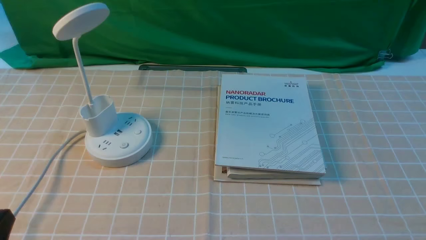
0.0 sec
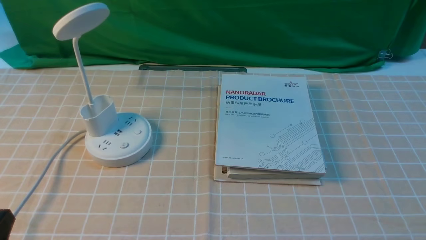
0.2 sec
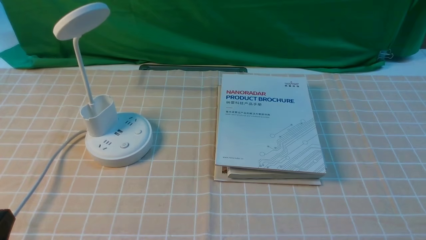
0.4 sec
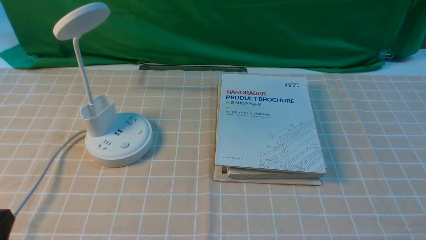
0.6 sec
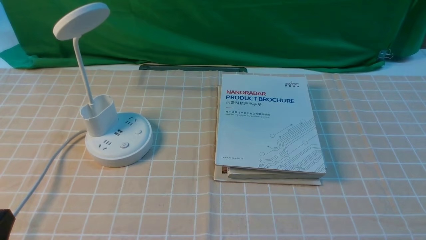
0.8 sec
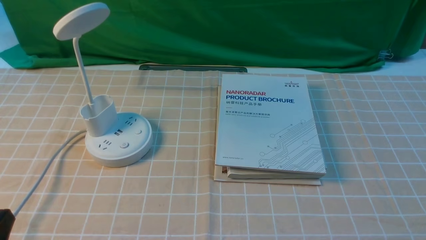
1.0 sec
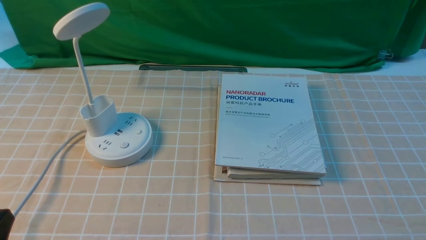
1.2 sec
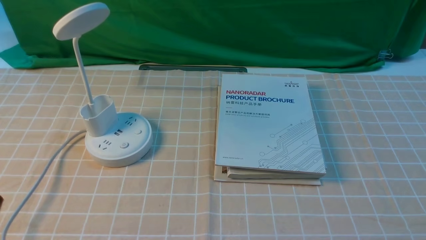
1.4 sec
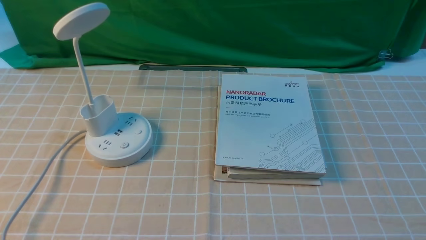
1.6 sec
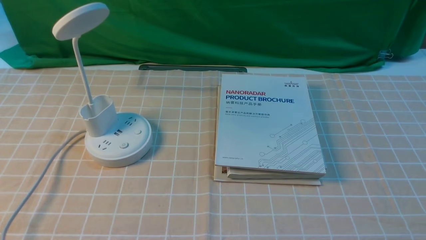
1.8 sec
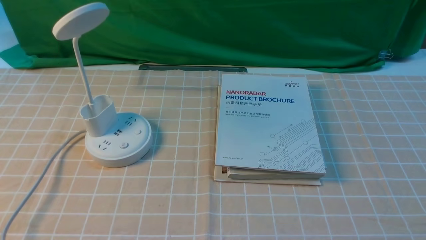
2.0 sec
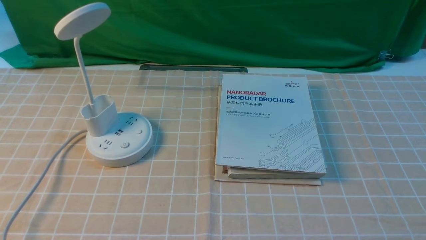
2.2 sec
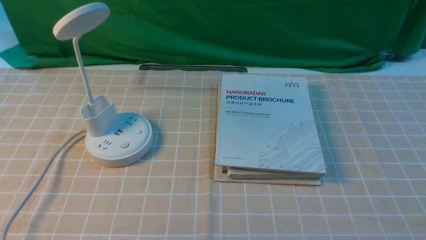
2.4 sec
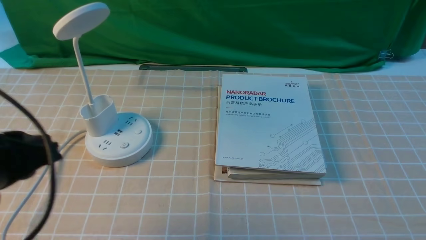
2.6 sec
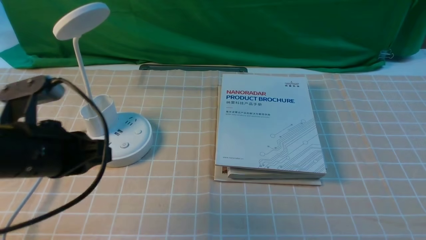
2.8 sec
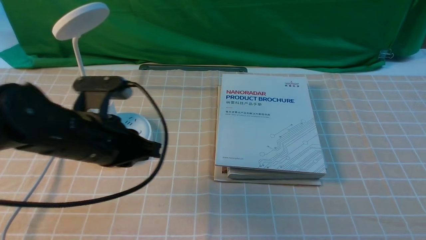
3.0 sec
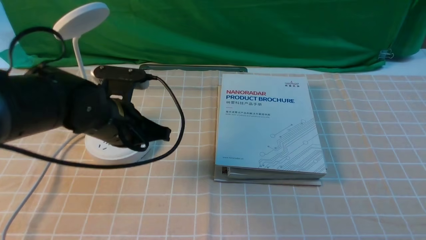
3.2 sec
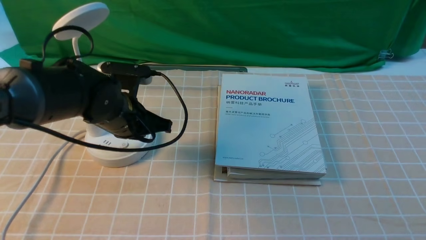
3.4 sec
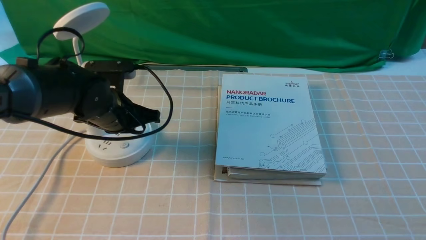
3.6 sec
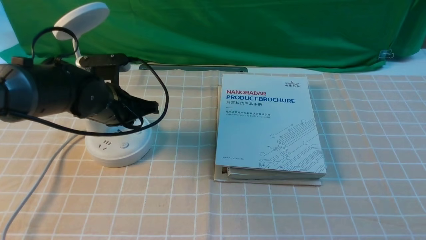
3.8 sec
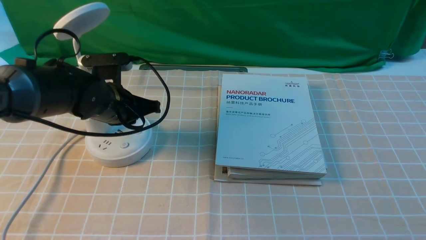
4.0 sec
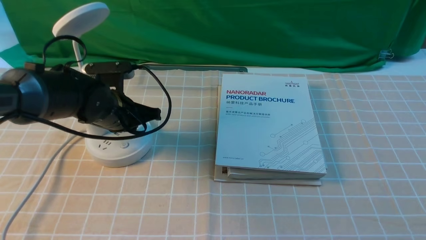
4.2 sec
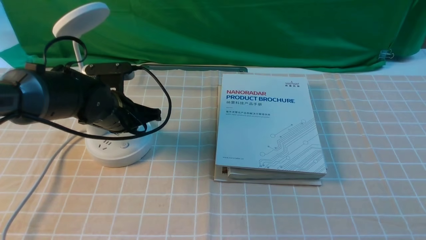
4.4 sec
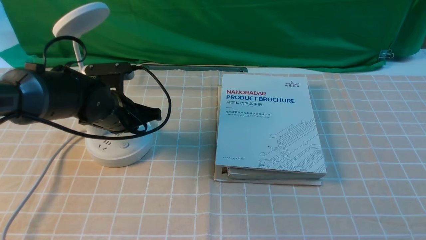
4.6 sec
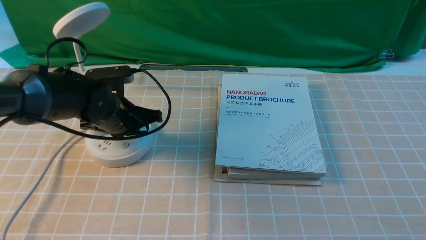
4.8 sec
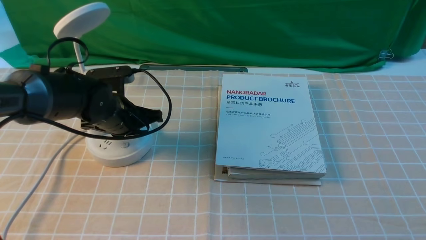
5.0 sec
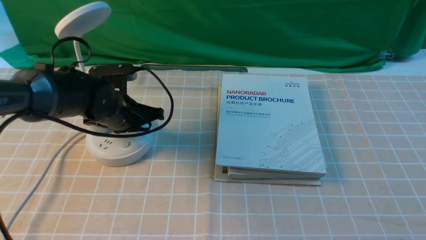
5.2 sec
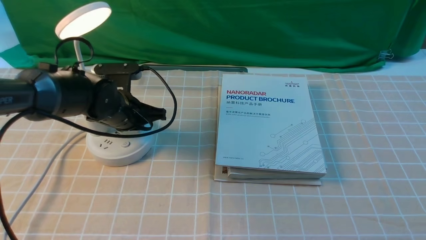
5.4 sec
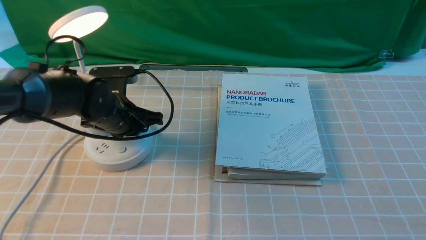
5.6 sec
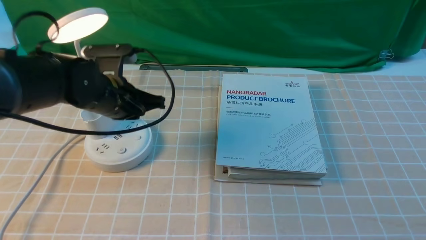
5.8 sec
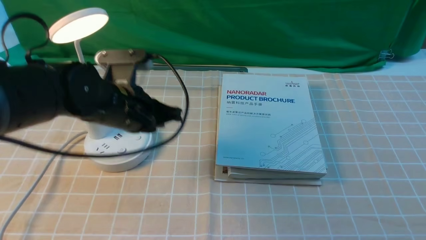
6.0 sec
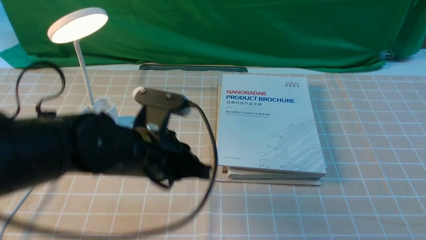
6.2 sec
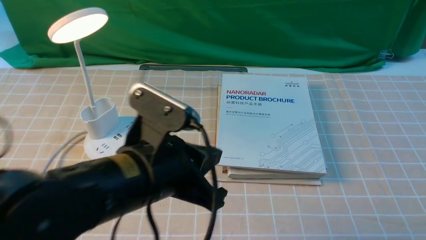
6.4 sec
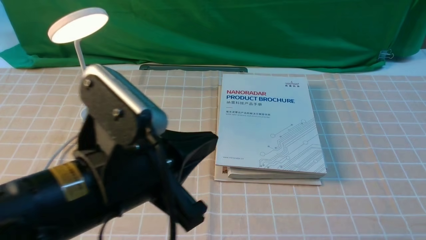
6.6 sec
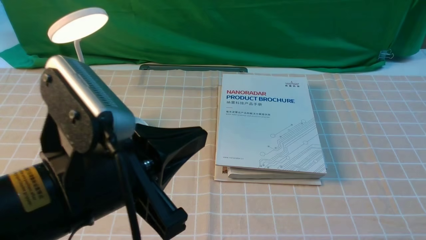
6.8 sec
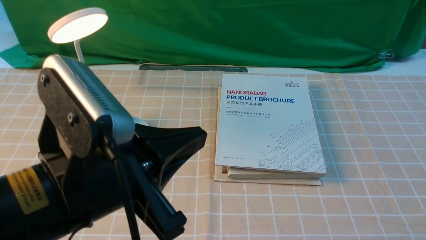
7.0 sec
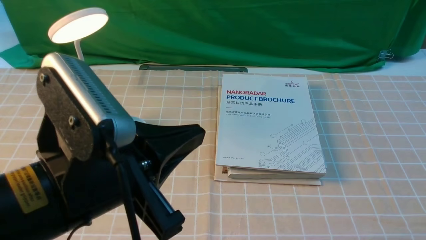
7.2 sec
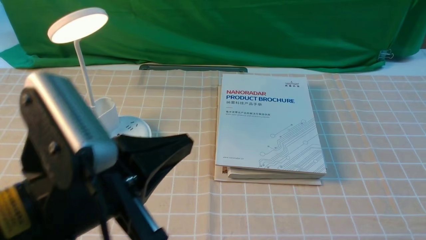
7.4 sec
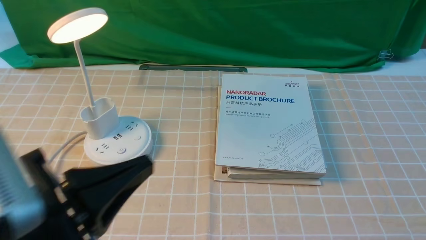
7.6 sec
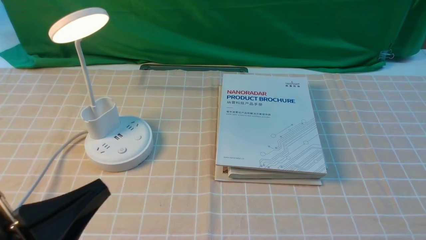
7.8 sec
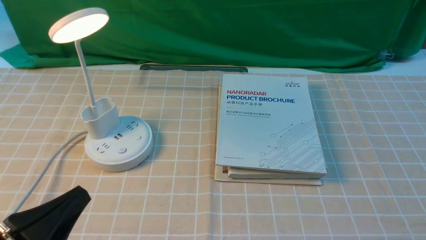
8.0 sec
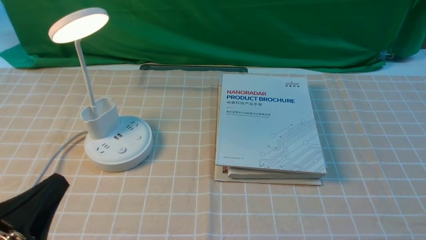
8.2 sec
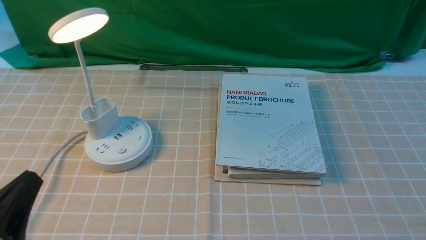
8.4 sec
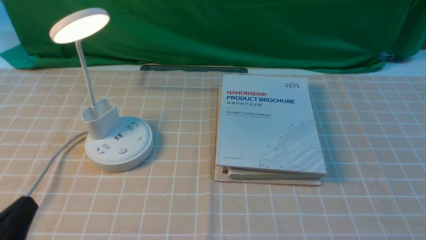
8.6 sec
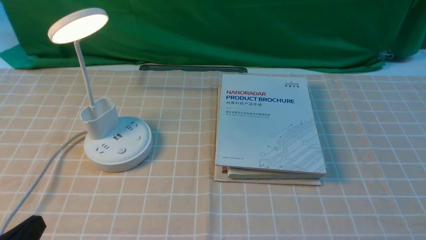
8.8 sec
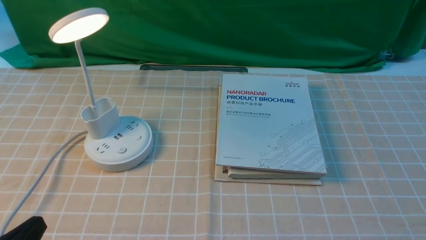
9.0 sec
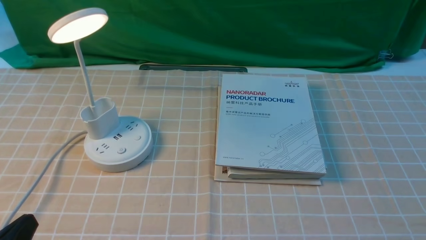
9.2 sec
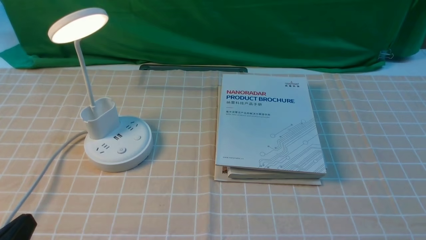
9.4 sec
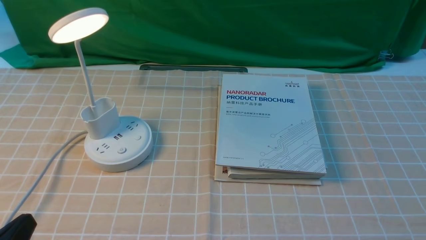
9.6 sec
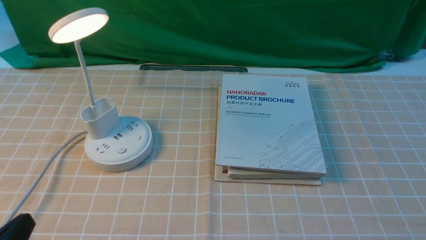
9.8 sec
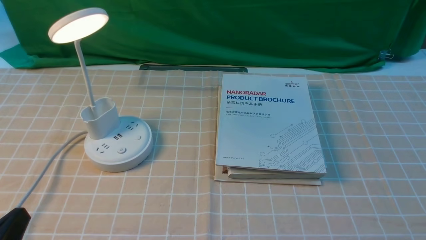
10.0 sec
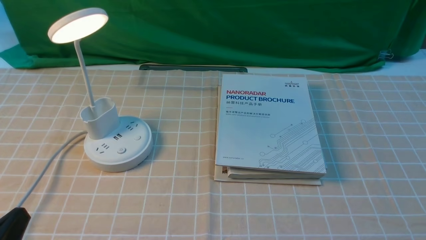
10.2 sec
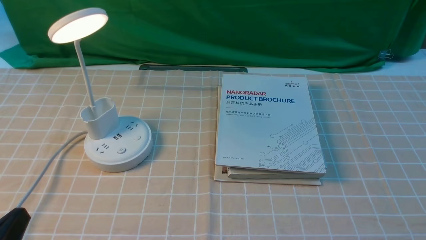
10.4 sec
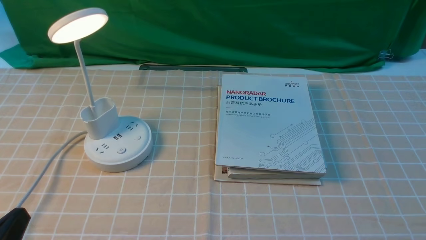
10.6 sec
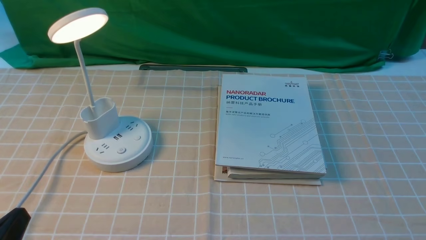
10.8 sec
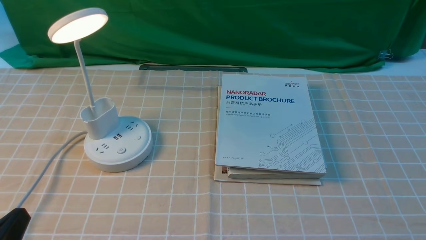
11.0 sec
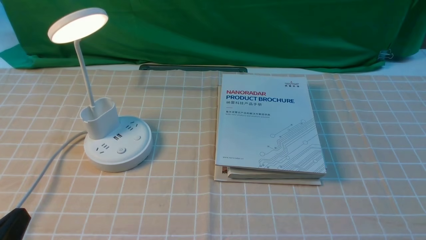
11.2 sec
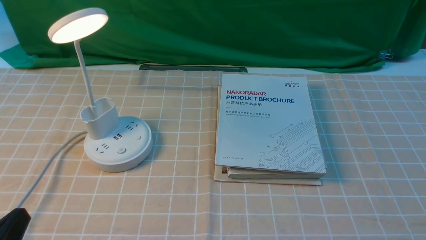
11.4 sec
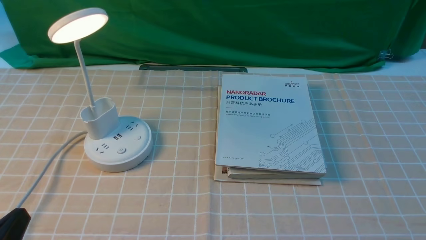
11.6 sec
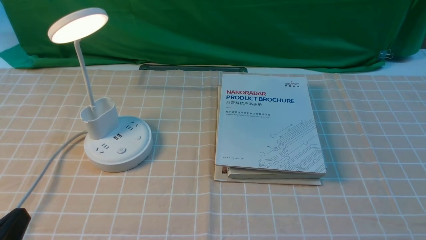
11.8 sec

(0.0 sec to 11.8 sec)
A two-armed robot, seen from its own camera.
Step, 0.0 sec - 5.8 sec: use the left arm to press the button switch on the lamp holder.
1.4 sec - 3.0 sec: The left gripper is displaced forward and to the right by roughly 25 cm, and closes.
3.0 sec - 4.4 sec: The left gripper shifts approximately 10 cm forward and downward, and opens.
4.4 sec - 6.0 sec: The left gripper goes about 10 cm backward and upward.
6.0 sec - 7.4 sec: The left gripper is displaced backward by approximately 20 cm.
7.4 sec - 8.8 sec: The left gripper travels downward, to the left and backward by about 15 cm.
8.8 sec - 10.4 sec: There are only small adjustments of the grippers.
10.4 sec - 11.8 sec: Both grippers stay put.
